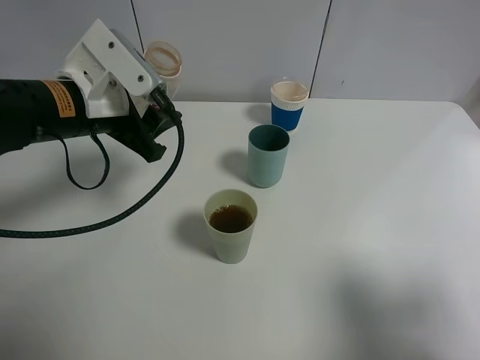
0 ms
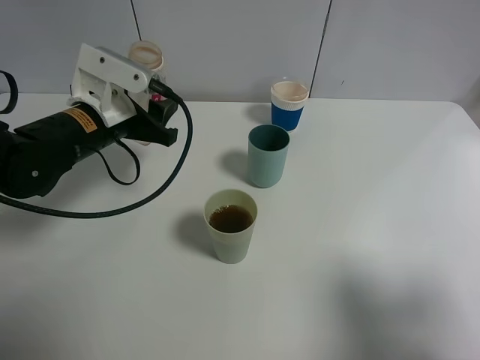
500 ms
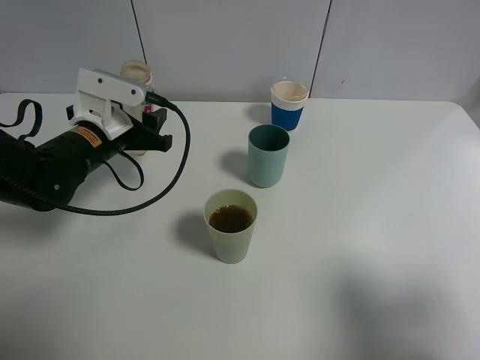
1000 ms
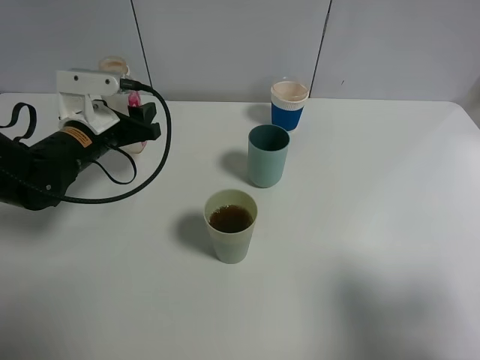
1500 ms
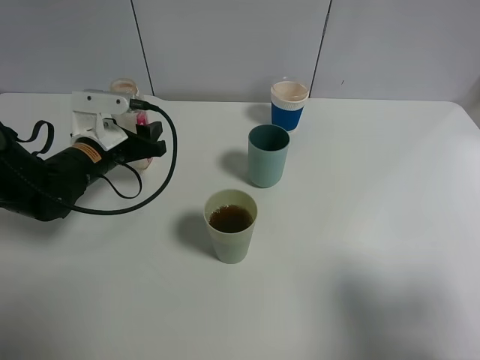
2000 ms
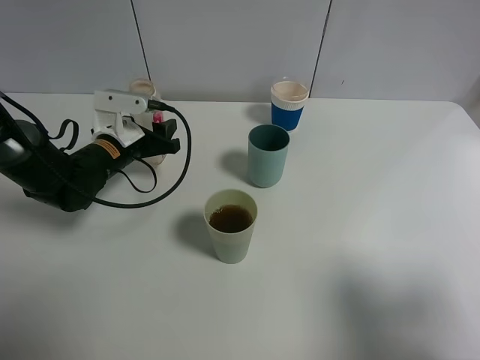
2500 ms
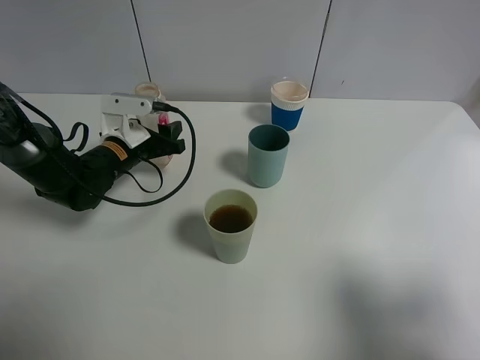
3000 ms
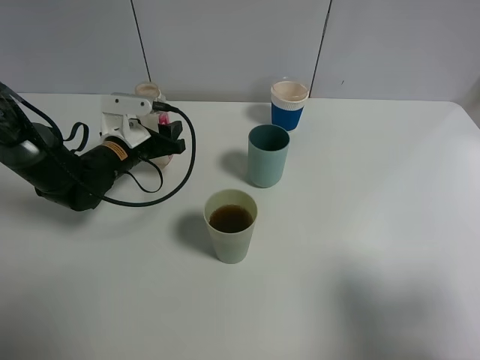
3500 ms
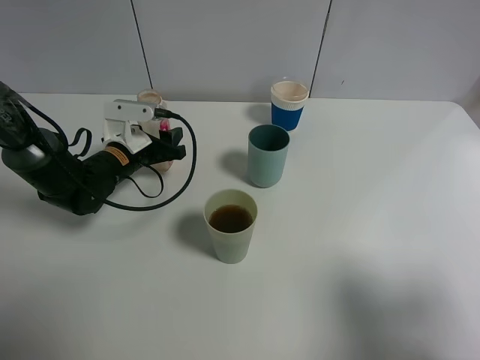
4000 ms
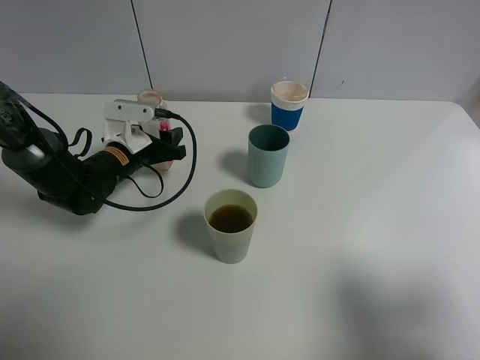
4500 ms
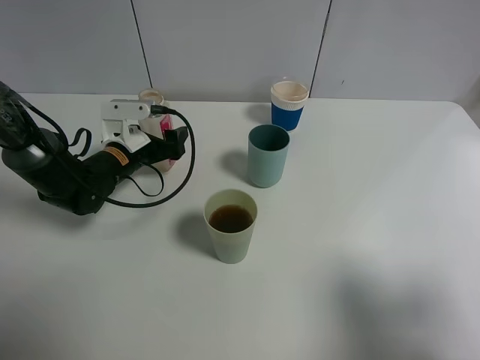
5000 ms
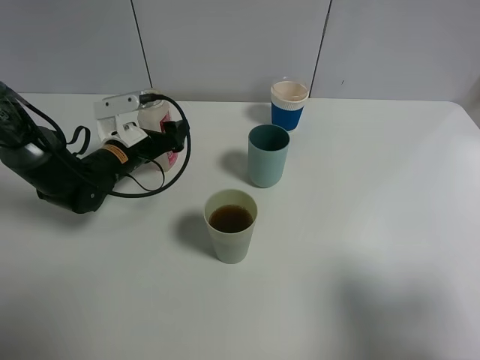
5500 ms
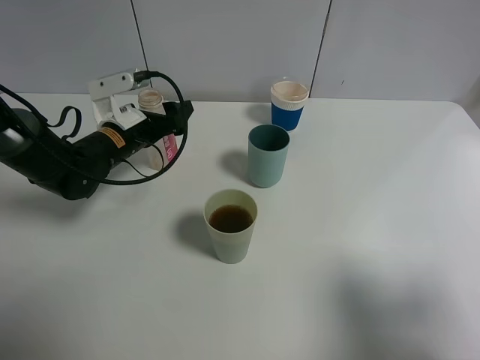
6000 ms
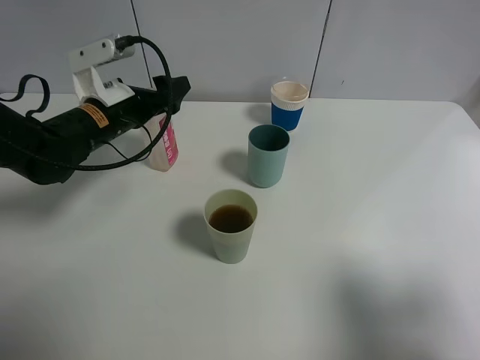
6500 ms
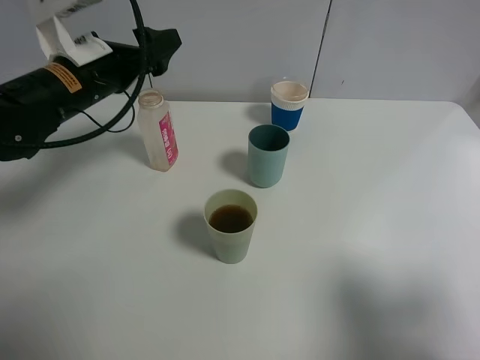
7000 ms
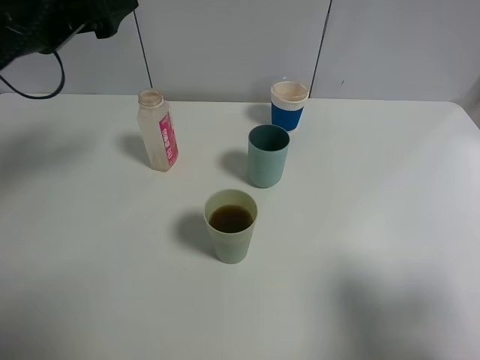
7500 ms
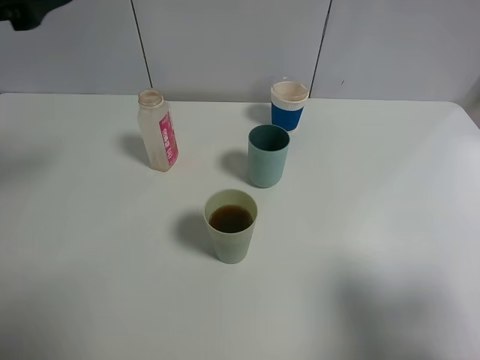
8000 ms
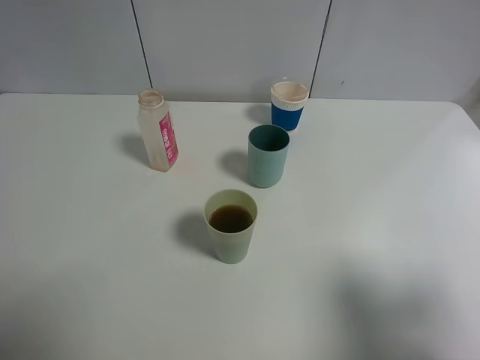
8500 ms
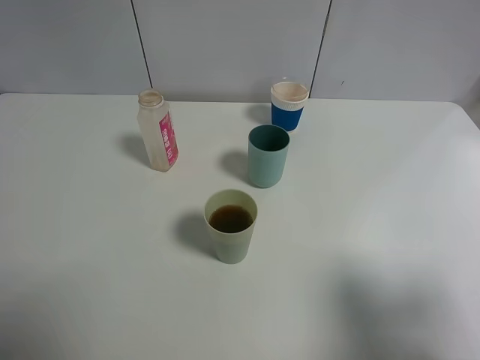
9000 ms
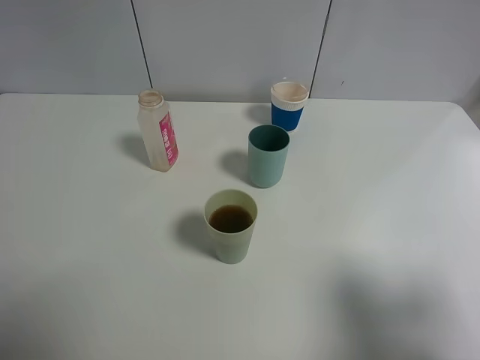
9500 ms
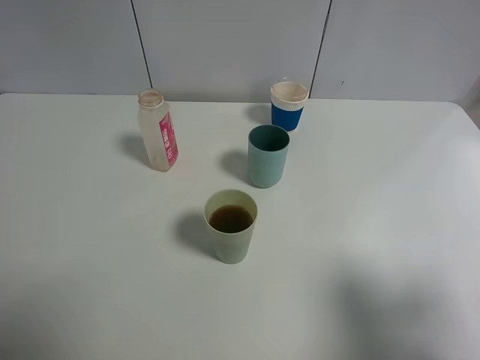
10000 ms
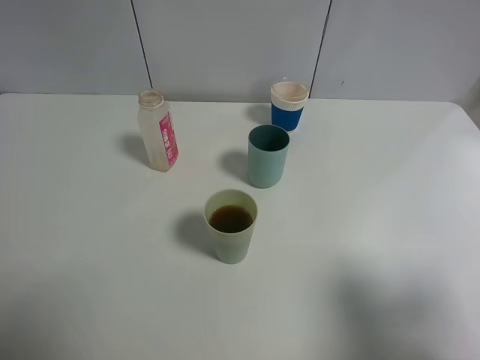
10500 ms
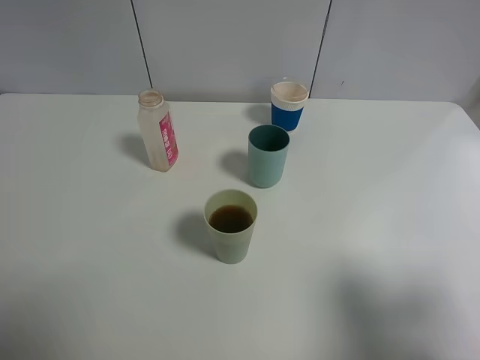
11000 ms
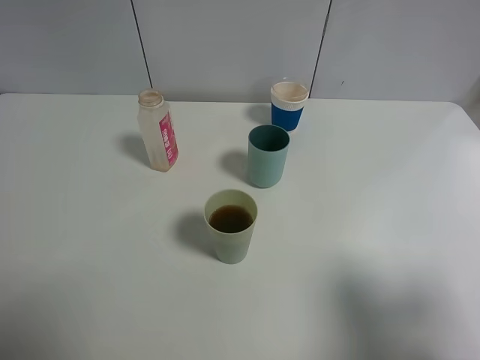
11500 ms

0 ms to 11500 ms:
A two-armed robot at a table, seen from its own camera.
Task of the whole recording: use a gripper to hold the bottle of the drink and pour it into a random cup.
Step, 0 ms to 6000 ms: Place the cranberry juice bottle on the table with the left gripper.
0 ms to 2000 ms: The left gripper travels downward by about 10 cm.
2000 ms to 4000 ms: The left gripper moves about 5 cm.
4000 ms to 6000 ms: The left gripper opens up.
6000 ms to 7500 ms: The left gripper moves upward and backward, some 20 cm.
7500 ms to 9500 ms: The left gripper heads backward and to the left, covering about 25 cm.
